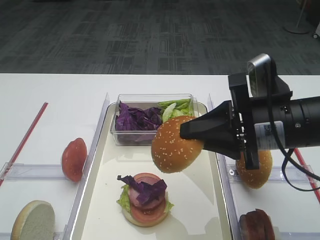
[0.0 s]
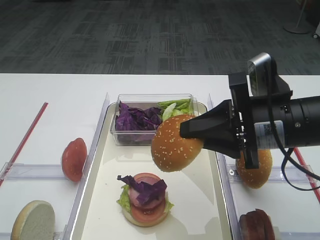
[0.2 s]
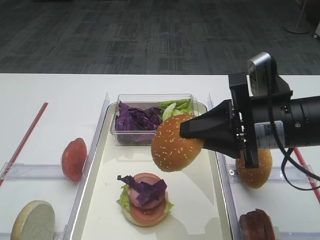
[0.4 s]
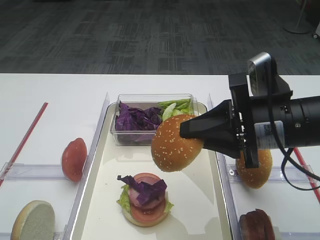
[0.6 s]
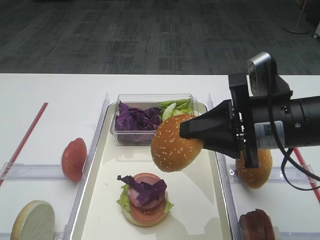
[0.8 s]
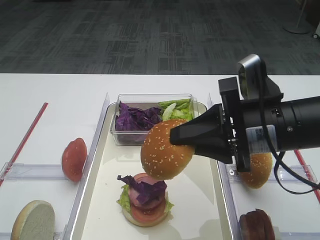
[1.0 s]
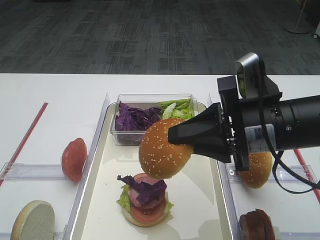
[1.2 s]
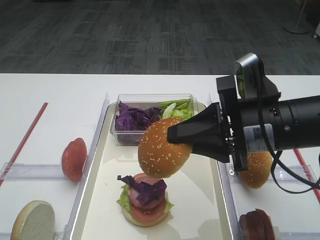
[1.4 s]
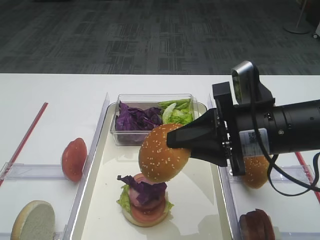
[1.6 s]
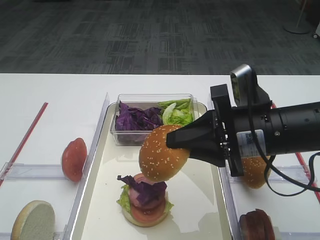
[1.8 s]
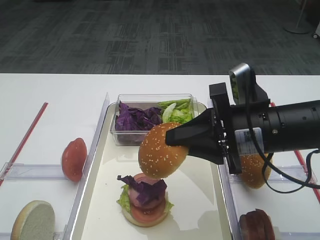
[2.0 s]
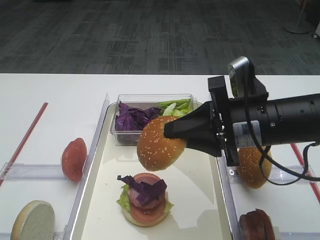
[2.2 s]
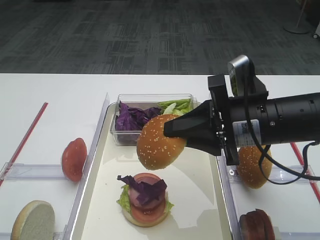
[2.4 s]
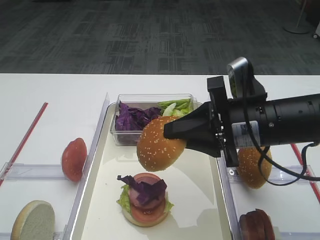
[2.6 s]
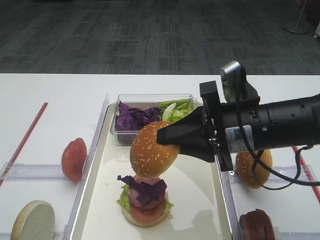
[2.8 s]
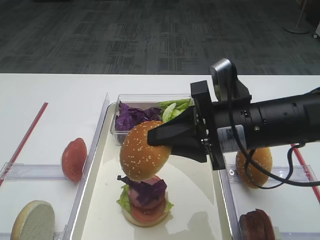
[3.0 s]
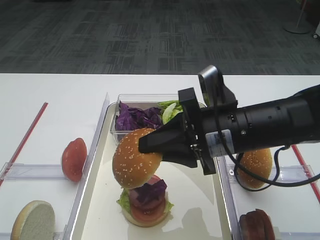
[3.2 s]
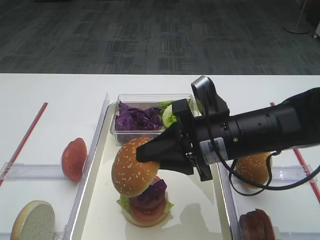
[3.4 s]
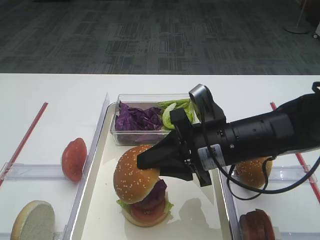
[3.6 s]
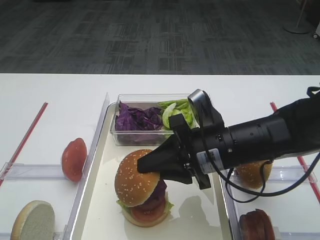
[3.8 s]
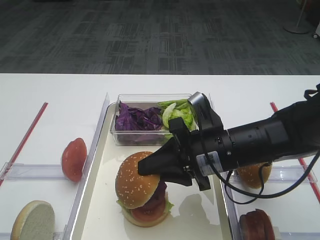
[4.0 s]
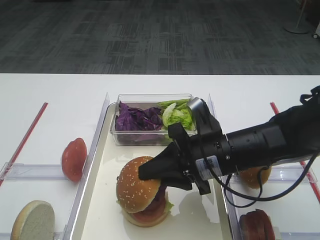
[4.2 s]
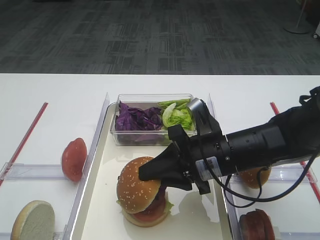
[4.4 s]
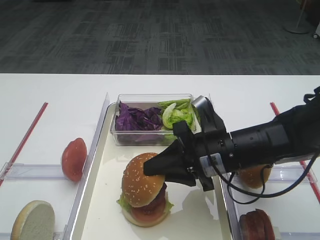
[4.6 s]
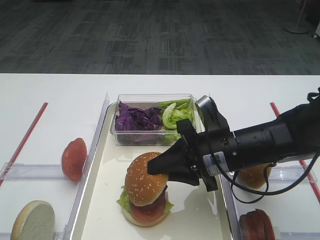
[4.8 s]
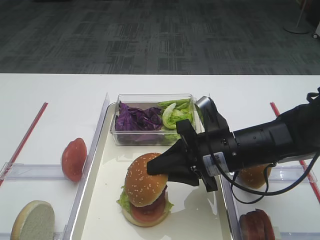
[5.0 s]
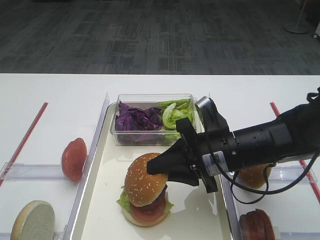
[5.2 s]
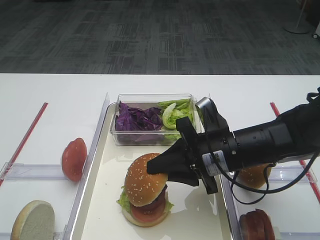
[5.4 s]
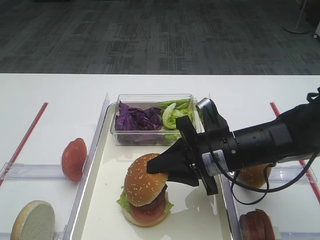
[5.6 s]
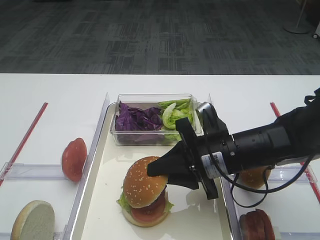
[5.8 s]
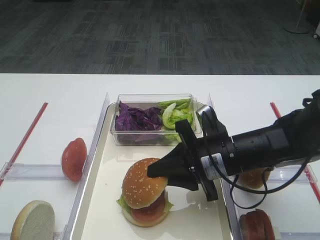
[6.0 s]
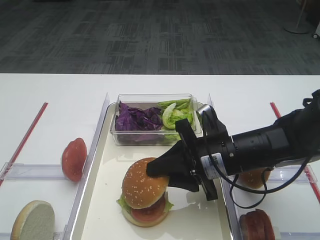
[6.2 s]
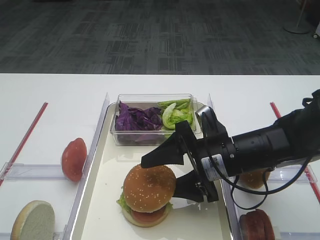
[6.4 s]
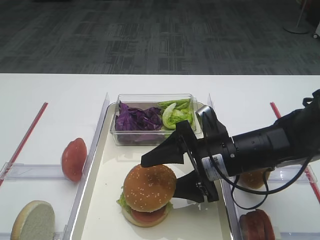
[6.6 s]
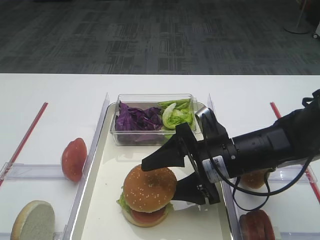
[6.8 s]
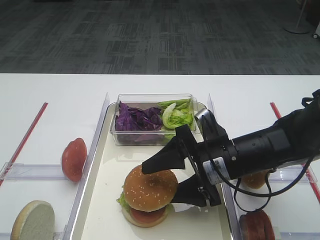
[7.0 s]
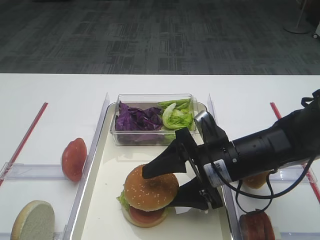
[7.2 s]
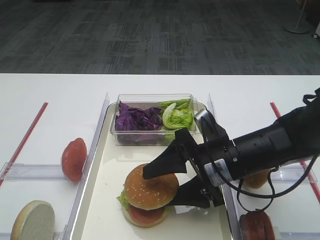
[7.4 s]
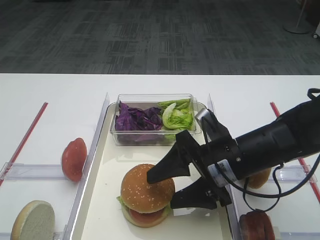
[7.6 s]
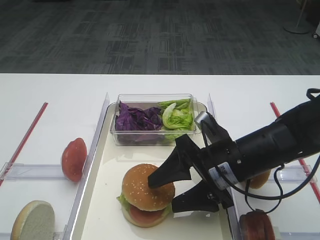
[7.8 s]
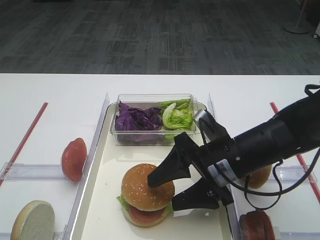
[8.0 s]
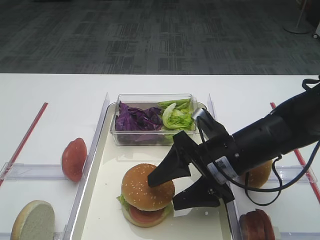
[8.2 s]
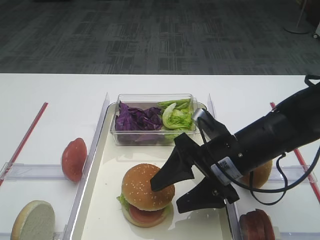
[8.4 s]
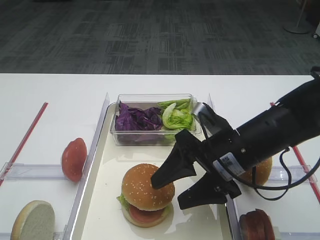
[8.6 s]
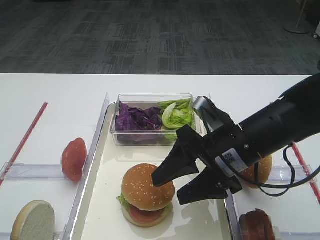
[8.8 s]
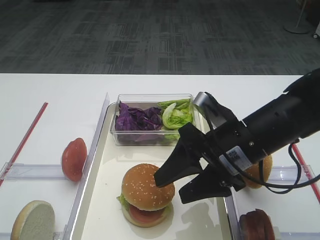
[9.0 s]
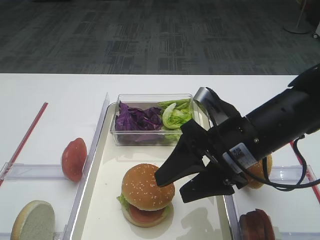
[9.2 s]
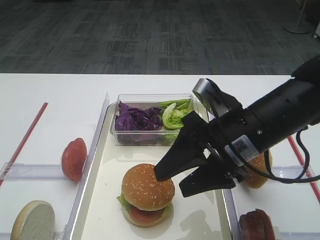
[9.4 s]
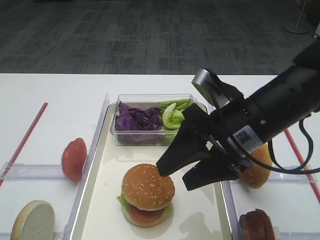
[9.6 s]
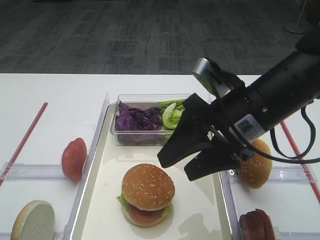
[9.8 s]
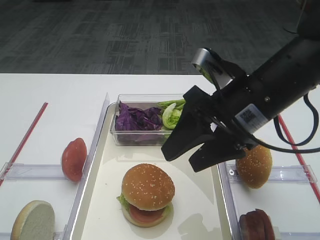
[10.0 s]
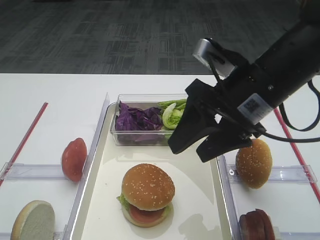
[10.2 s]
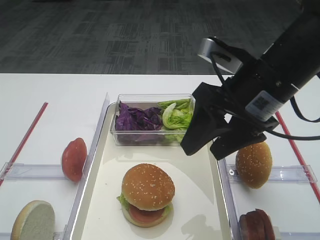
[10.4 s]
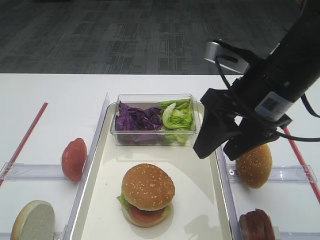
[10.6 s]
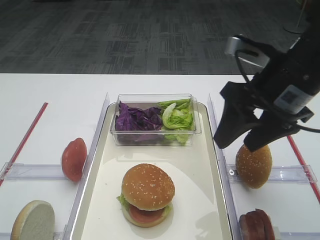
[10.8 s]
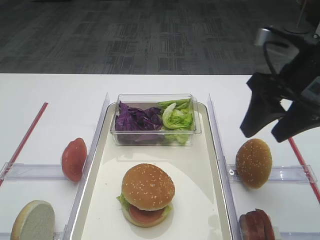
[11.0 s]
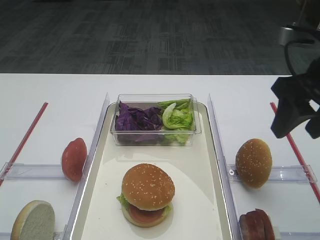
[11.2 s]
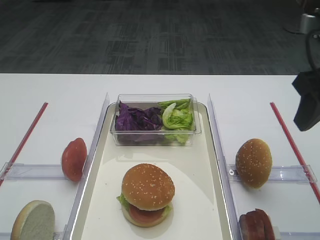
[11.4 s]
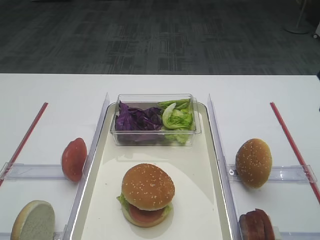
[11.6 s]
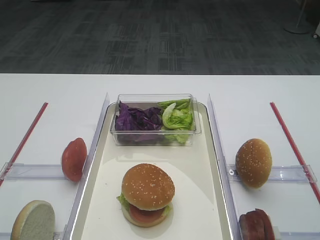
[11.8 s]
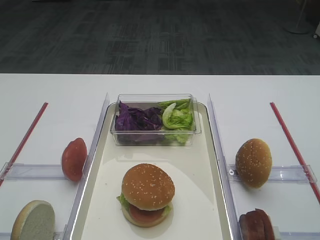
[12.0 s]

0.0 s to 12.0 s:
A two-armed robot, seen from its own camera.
Step, 0.0 to 9.8 s: Place the hamburger lid on the purple cabbage with the right gripper.
0.0 to 3.0 s: The grippers make only small movements.
3.0 to 4.4 s: The right gripper goes approximately 5 cm downward.
4.4 to 6.0 s: There are only small adjustments of the grippers.
6.0 to 7.6 s: The right gripper opens up.
7.6 to 9.0 s: There are only small adjustments of the grippers.
9.0 to 10.4 s: The right gripper goes some 10 cm upward.
10.4 to 12.0 s: The right gripper is displaced to the right, upward and backward by approximately 20 cm.

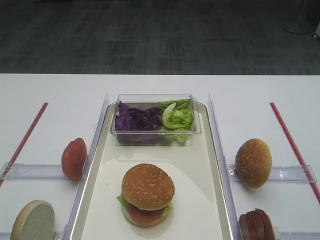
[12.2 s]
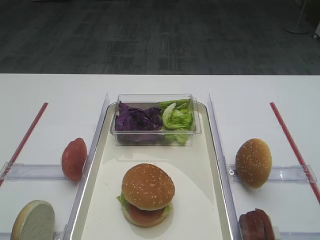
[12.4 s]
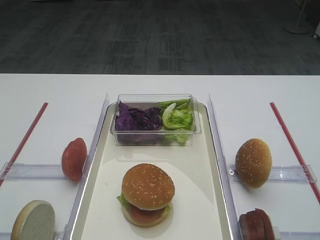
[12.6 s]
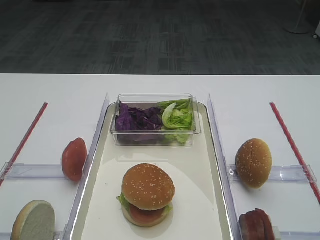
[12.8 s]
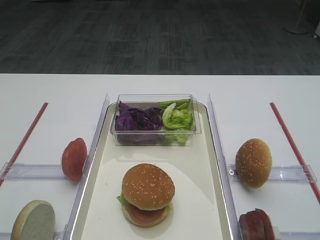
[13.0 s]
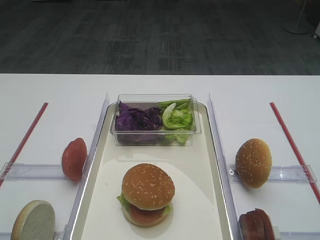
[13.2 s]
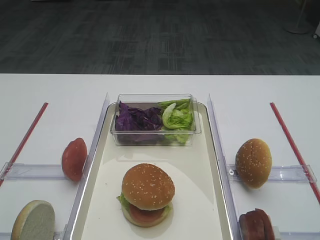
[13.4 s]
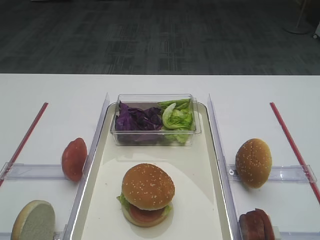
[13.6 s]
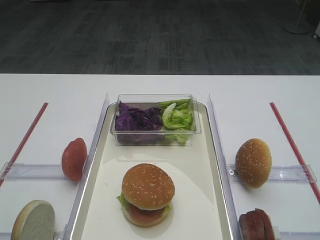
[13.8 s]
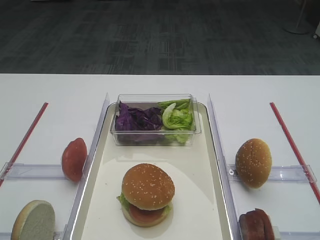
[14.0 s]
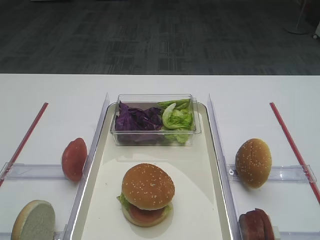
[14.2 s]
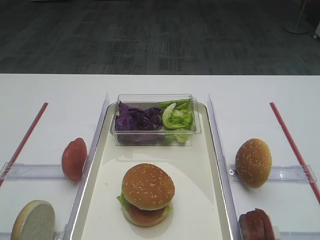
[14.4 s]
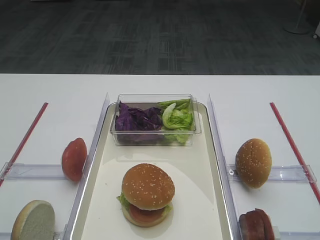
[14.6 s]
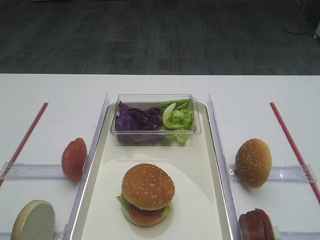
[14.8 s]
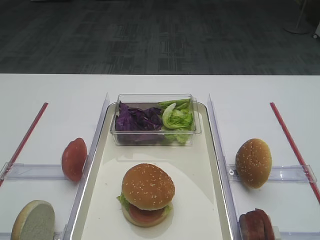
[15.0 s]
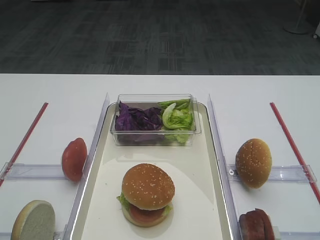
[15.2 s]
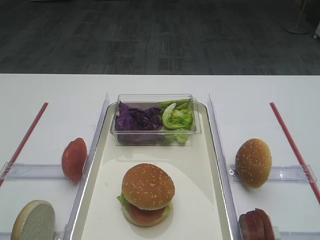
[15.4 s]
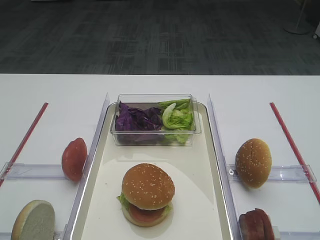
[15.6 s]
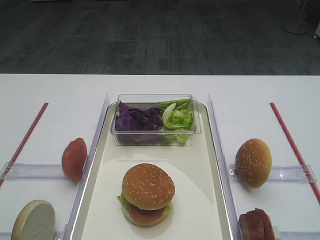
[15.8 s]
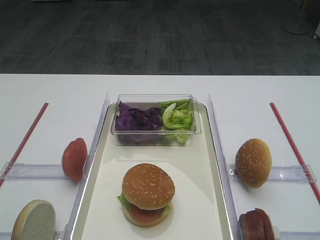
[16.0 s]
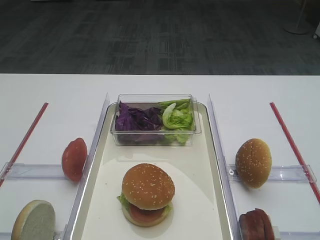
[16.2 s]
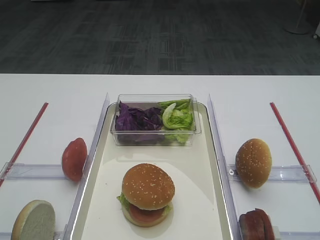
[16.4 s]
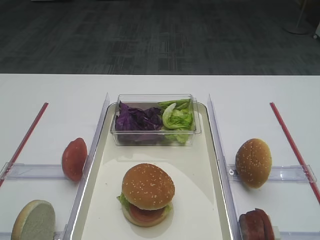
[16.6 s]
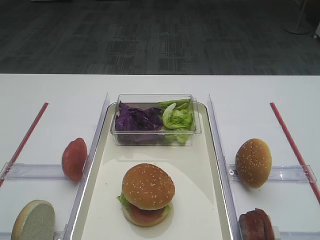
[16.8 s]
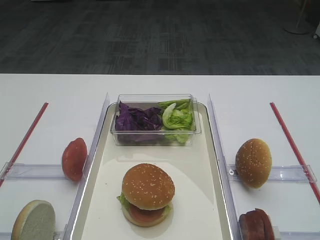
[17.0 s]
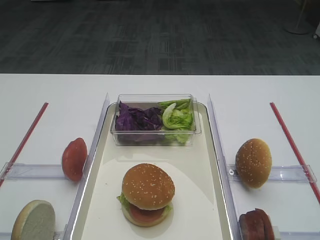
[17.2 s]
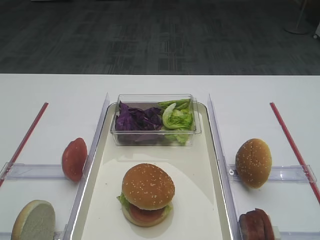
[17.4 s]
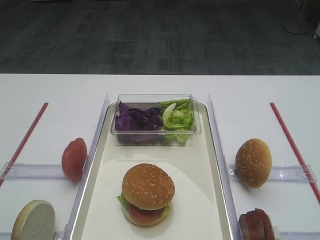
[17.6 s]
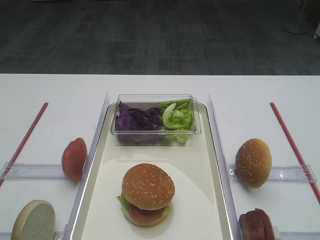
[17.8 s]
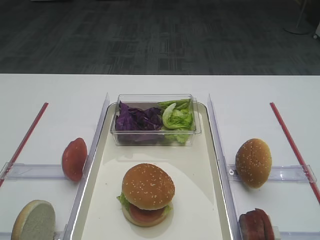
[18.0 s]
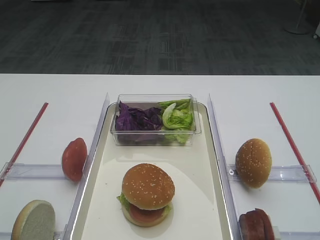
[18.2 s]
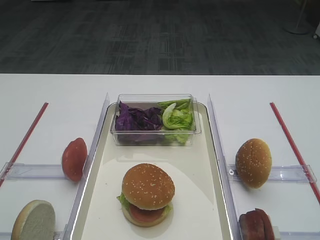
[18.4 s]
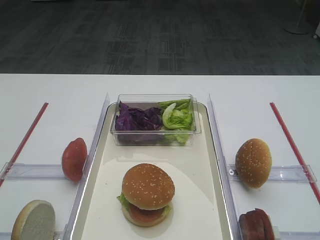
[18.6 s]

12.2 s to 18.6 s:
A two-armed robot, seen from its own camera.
15.4 to 18.6 s: Neither gripper changes place.

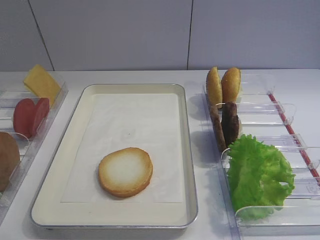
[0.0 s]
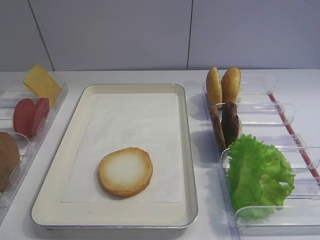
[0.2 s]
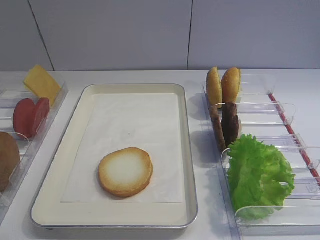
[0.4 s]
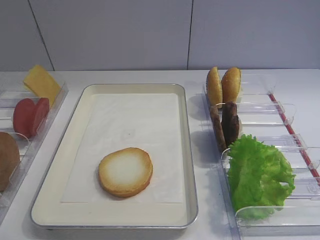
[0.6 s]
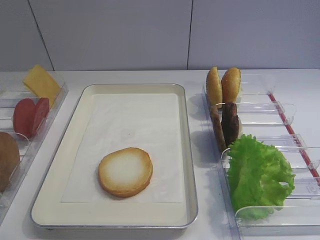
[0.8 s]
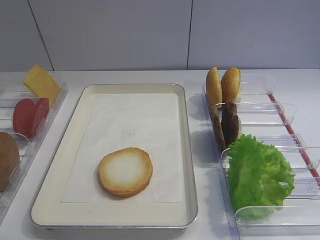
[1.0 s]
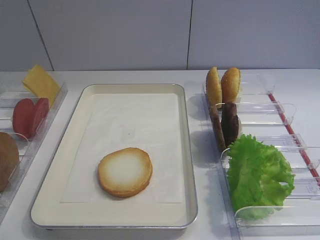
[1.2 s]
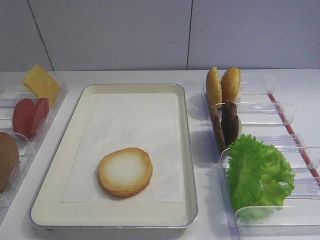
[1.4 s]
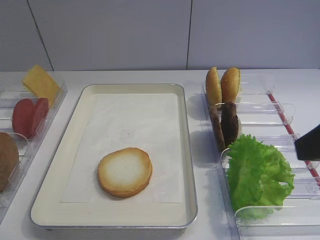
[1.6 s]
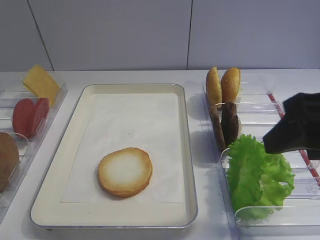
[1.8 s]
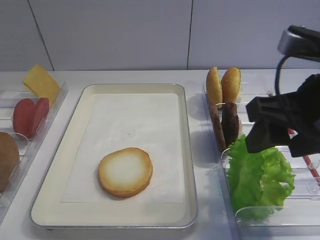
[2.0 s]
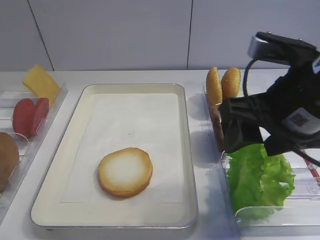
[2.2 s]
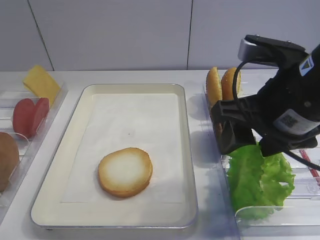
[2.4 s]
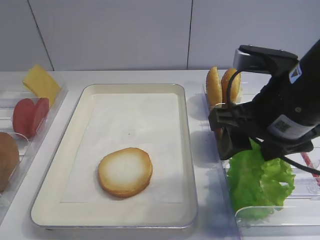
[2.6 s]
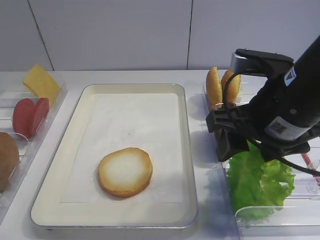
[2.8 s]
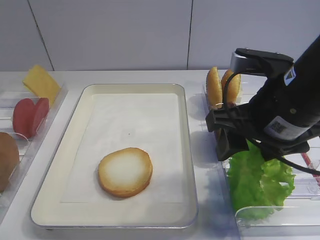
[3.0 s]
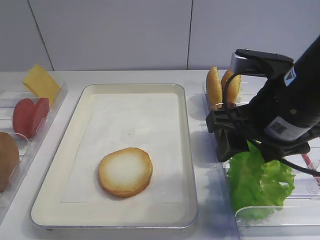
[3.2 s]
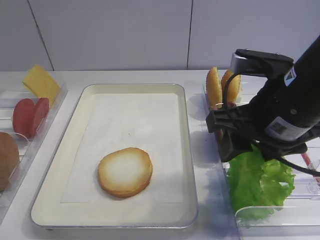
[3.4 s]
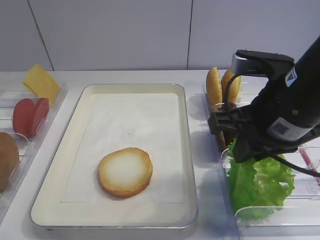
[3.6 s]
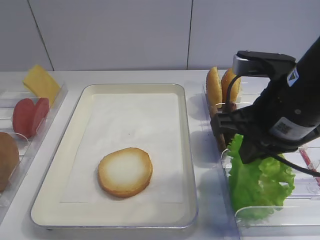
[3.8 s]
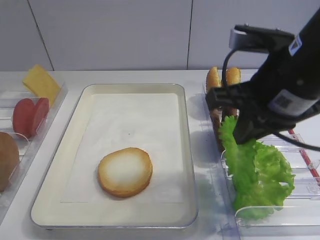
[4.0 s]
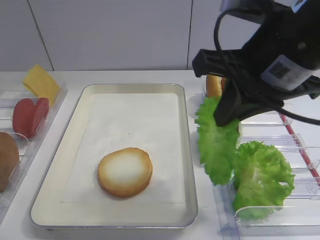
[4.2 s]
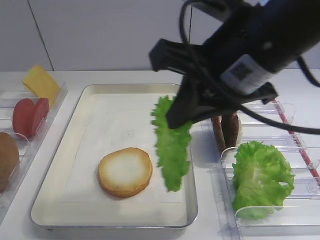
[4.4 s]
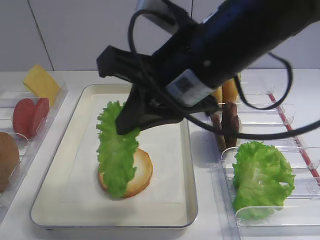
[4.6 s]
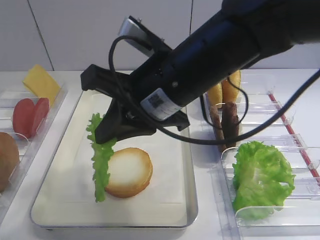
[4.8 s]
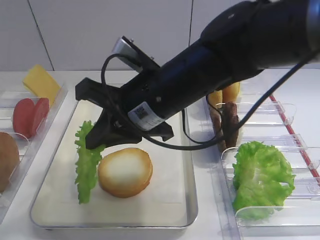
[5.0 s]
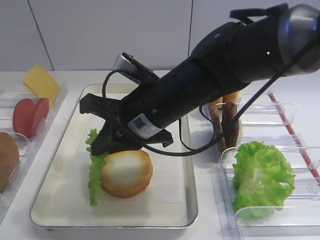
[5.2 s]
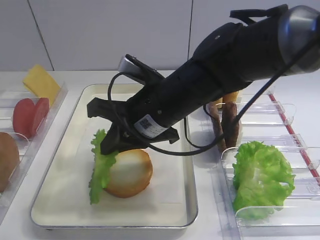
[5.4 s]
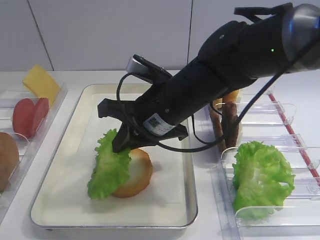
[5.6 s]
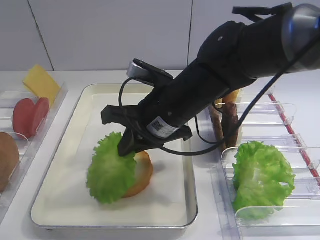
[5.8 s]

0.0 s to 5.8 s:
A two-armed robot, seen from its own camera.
Step, 0.0 to 3.8 s: Pick up the lettuce leaf with the right gripper.
1.4 to 2.8 s: The right gripper goes approximately 15 cm forward, to the left and downward.
2.8 to 4.4 s: The right gripper goes about 10 cm upward and to the left, and closes up.
4.4 to 5.8 s: The right gripper shifts some 15 cm downward, forward and to the left.
